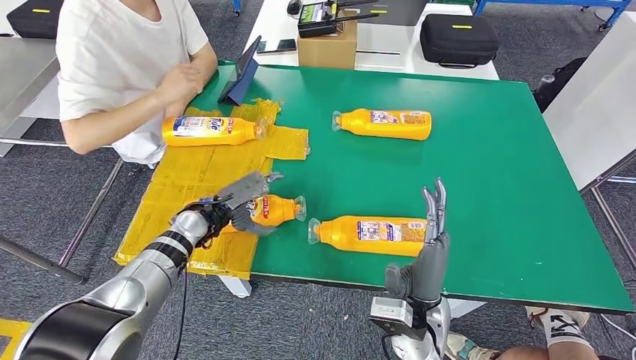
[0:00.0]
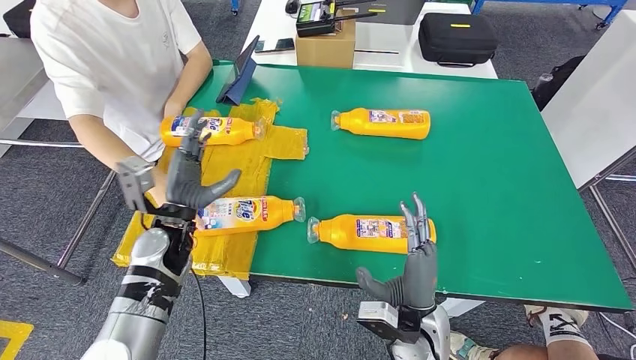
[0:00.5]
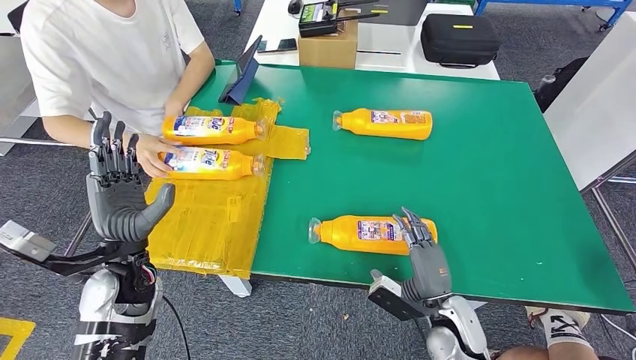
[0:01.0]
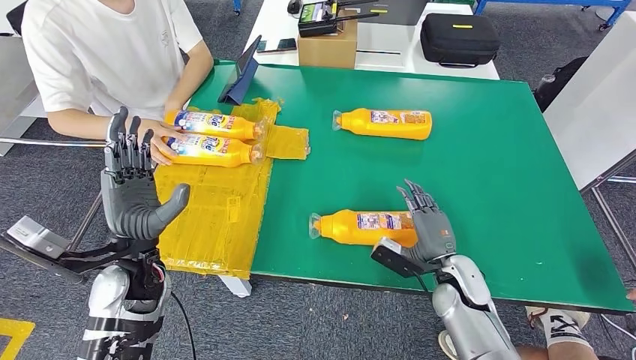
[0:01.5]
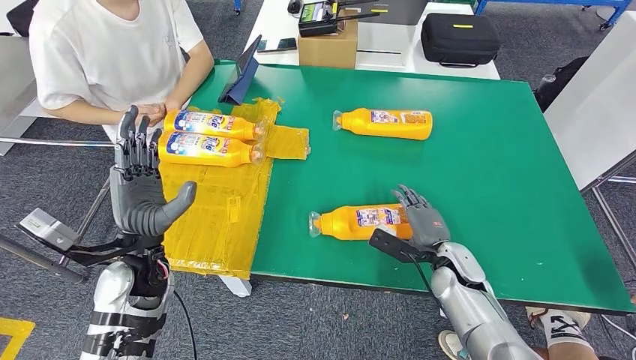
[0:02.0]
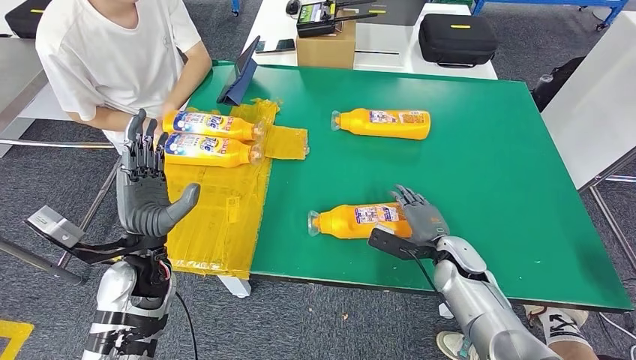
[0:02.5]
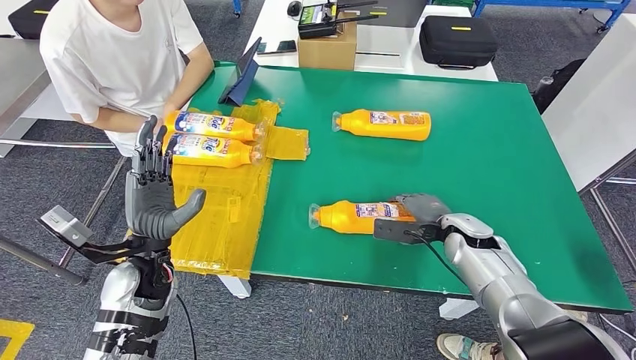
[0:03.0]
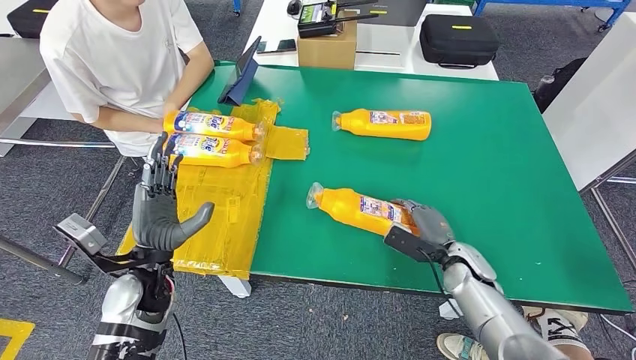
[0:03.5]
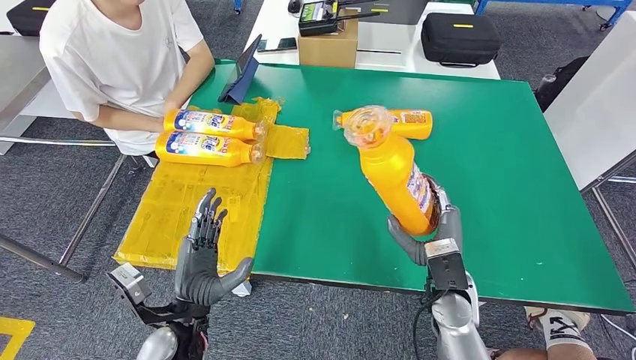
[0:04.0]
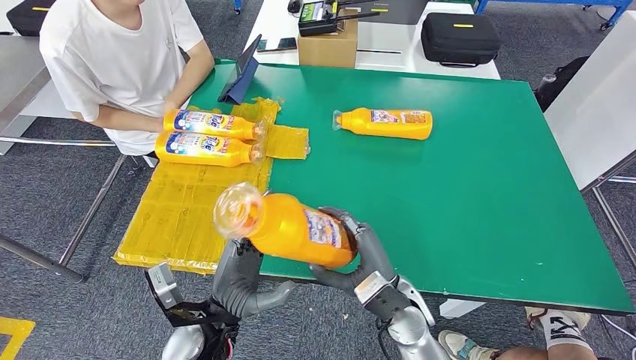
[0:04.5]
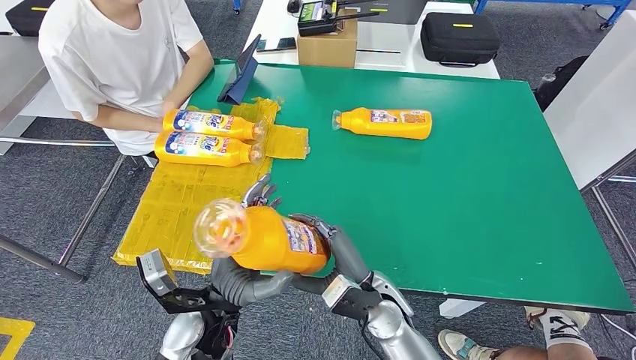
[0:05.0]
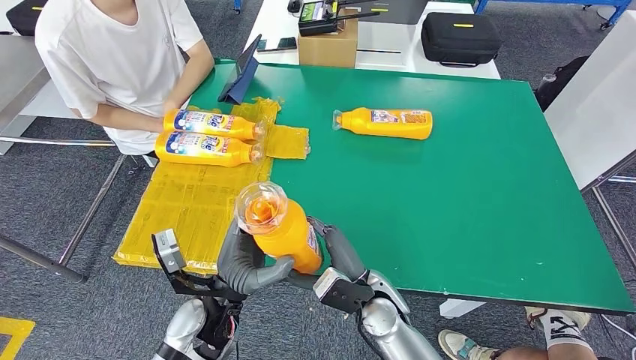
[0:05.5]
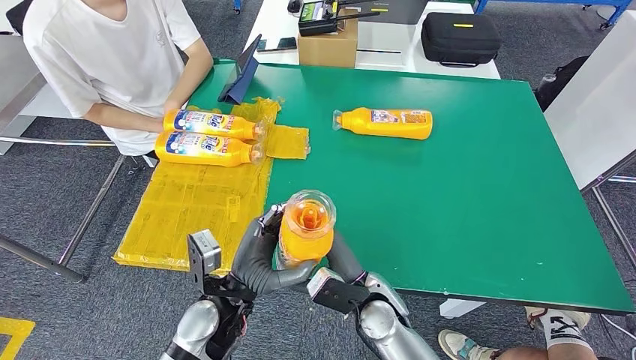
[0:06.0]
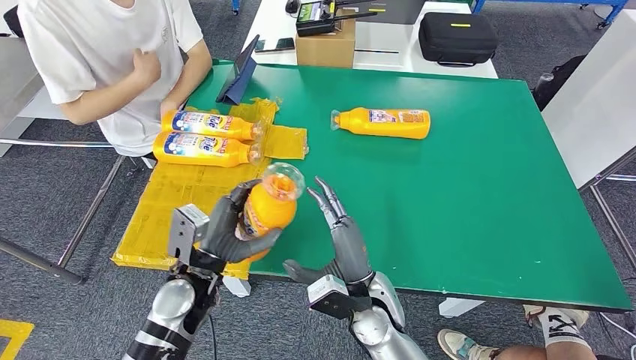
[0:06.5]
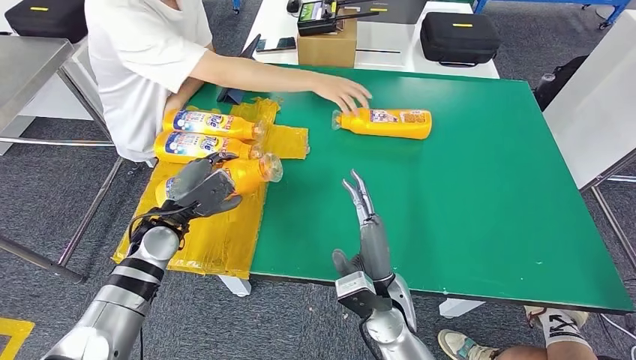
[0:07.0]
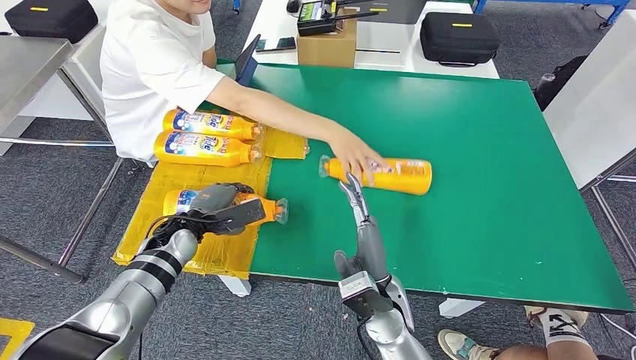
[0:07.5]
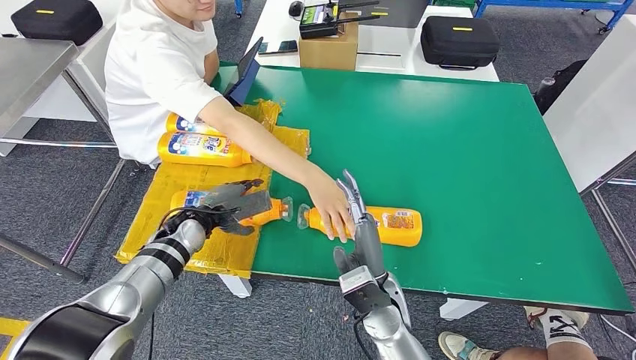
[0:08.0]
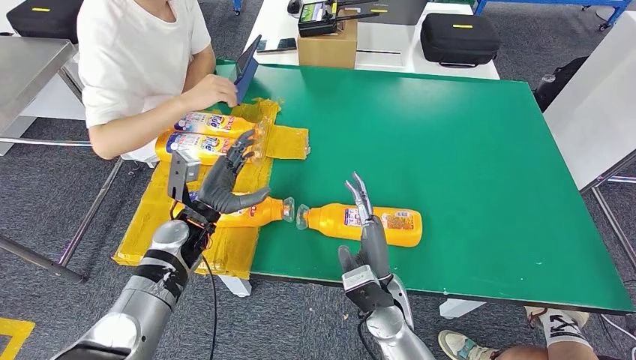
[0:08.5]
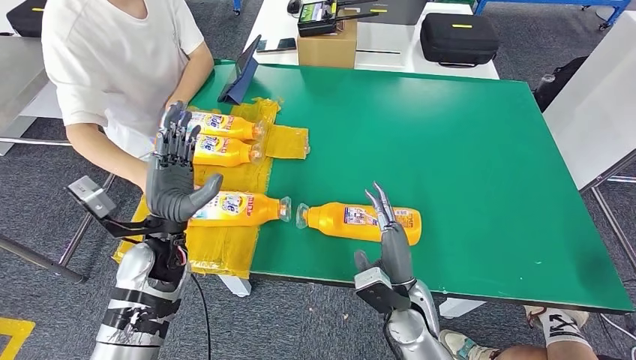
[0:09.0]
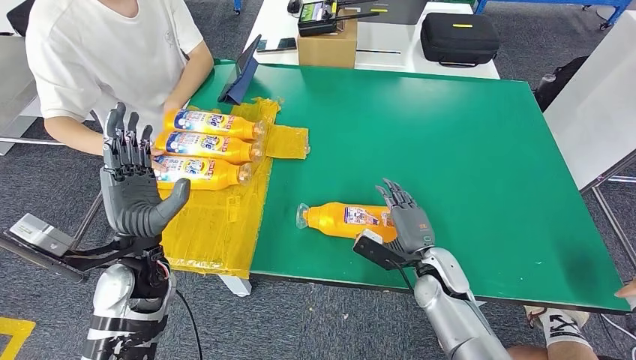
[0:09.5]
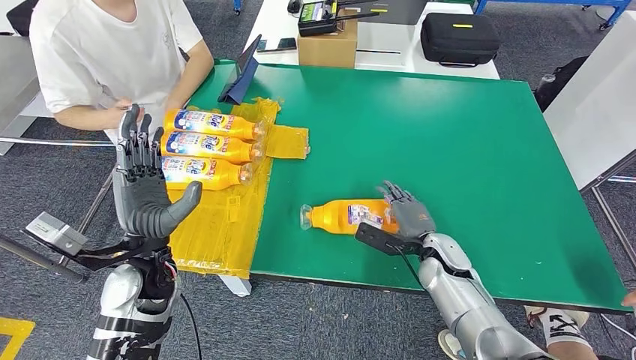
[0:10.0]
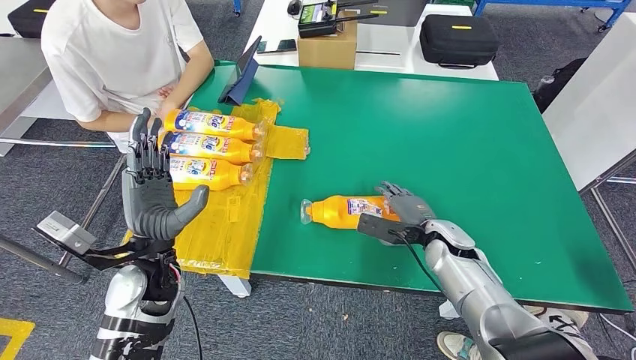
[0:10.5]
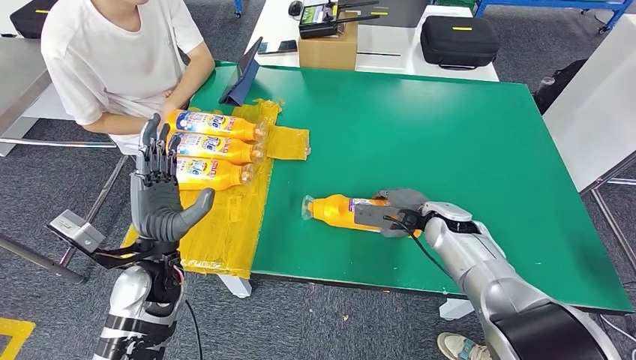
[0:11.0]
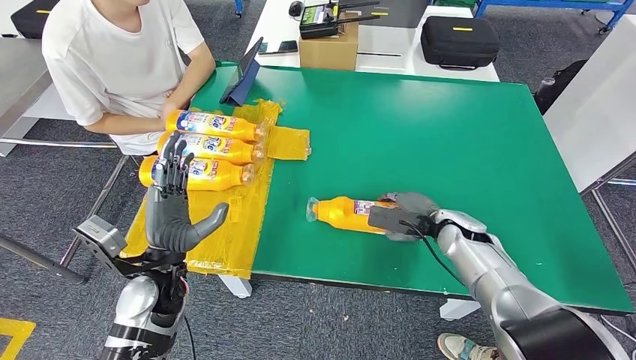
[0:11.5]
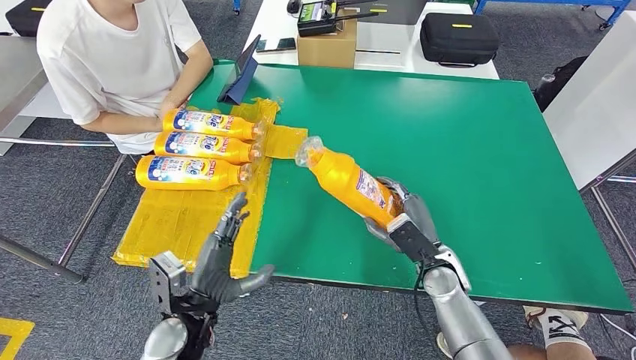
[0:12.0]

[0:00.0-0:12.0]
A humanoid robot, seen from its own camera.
Step, 0:01.0 to 0:05.5: Pick up the fast-moving consumer goods bottle from the table.
Step, 0:06.0 to 0:09.5: Flip the fast-moving consumer goods bottle to the front side.
0:04.0 to 0:06.0: The right hand goes some 10 cm to the left. The left hand moves to the right, some 5 cm.
0:10.0 to 0:12.0: The left hand is displaced downward and backward by roughly 10 cm.

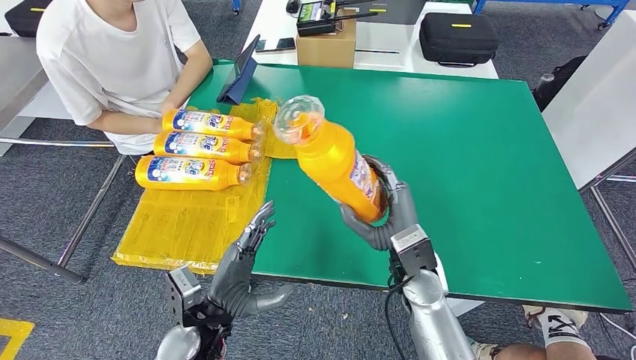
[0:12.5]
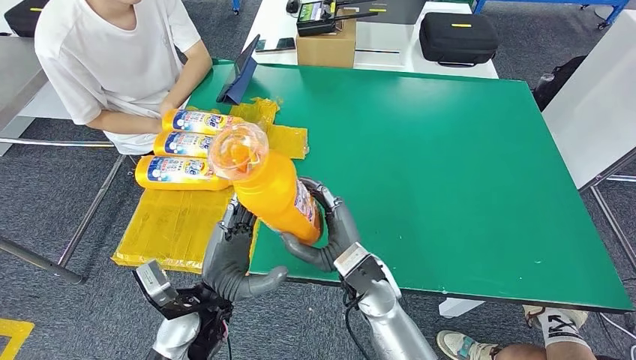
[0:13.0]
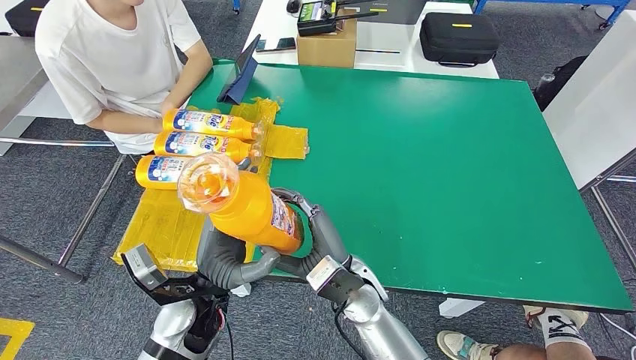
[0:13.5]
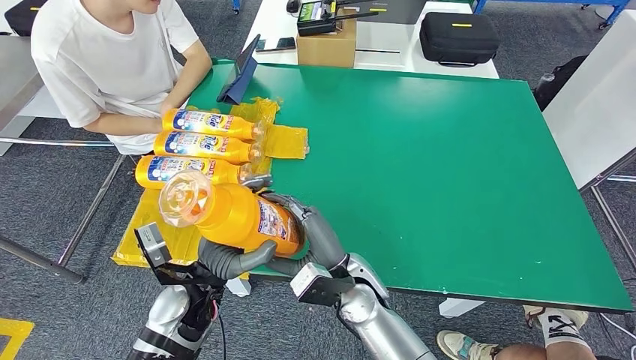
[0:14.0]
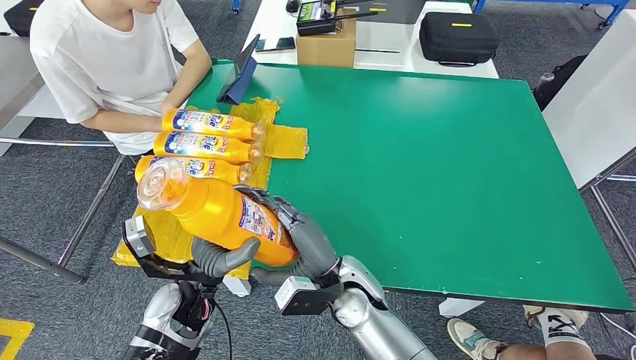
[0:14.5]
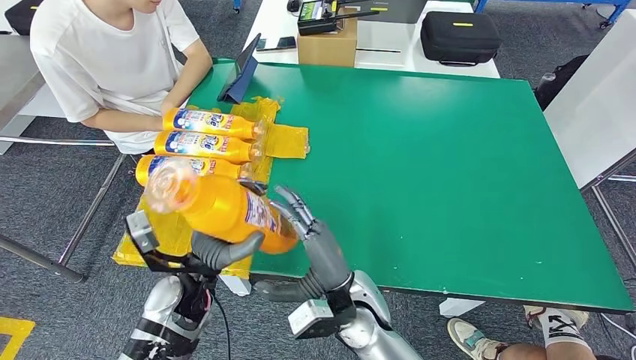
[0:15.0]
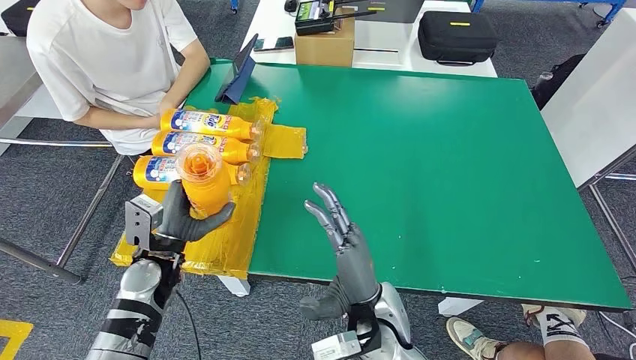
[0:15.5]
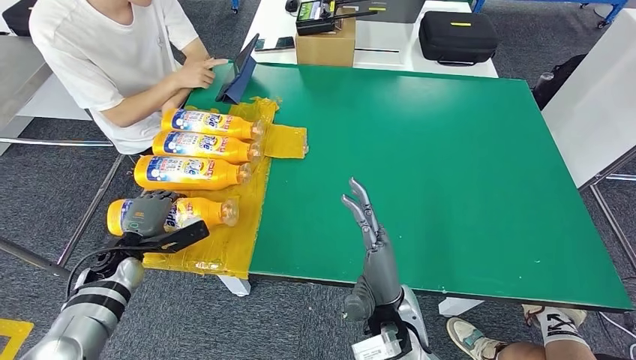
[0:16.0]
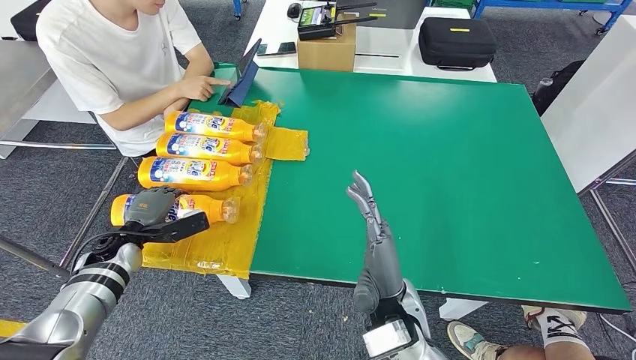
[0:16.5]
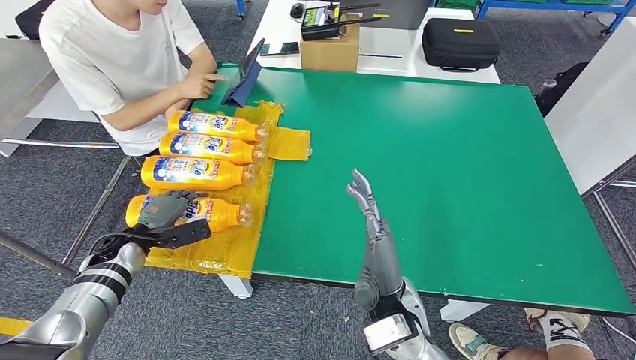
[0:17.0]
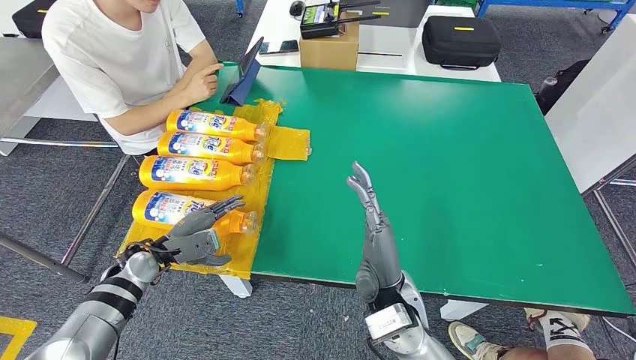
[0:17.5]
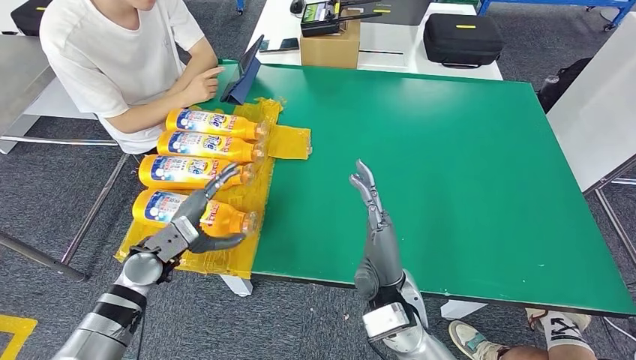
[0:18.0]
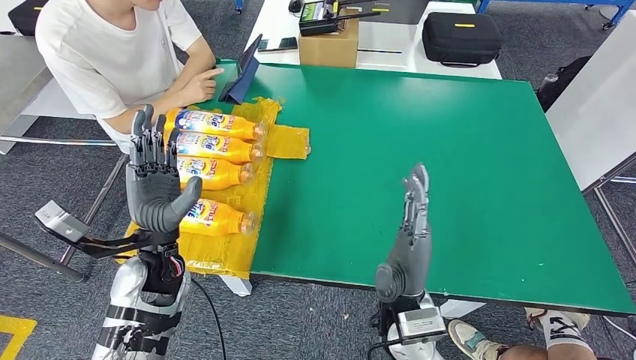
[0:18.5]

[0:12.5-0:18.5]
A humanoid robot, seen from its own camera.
Step, 0:14.5 to 0:18.5: Flip the fast-moving consumer goods bottle to the front side.
0:12.5 to 0:14.5: The right hand heads to the left, covering roughly 10 cm. Meanwhile the left hand heads forward, covering roughly 5 cm.
